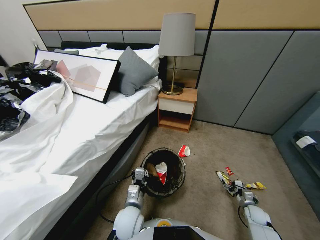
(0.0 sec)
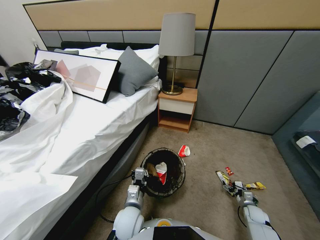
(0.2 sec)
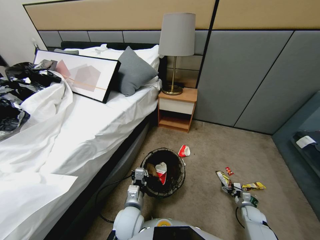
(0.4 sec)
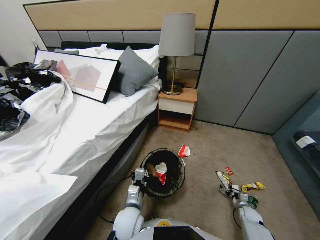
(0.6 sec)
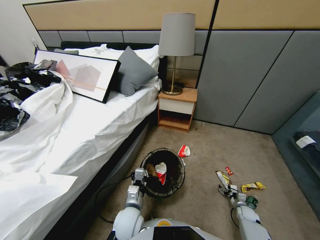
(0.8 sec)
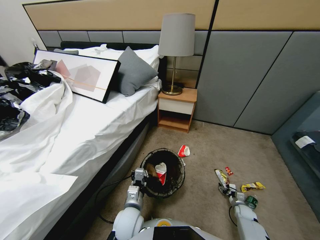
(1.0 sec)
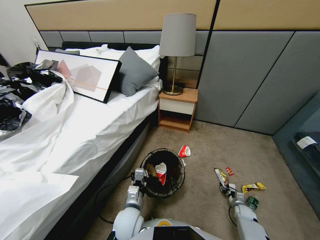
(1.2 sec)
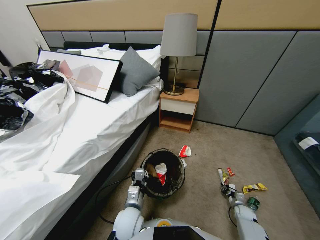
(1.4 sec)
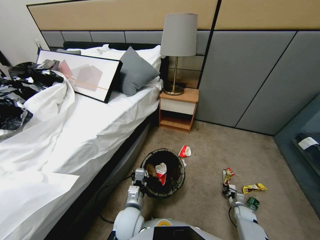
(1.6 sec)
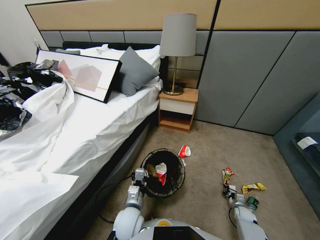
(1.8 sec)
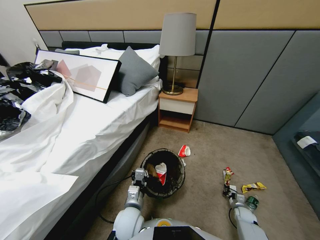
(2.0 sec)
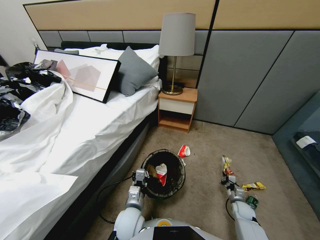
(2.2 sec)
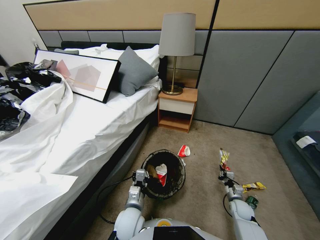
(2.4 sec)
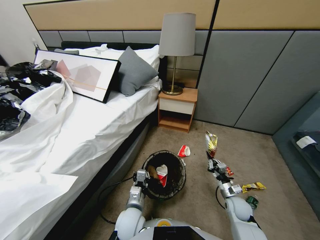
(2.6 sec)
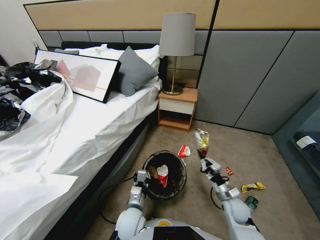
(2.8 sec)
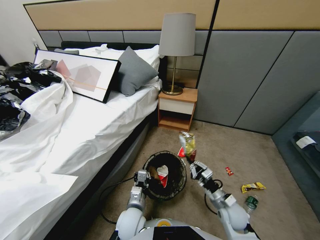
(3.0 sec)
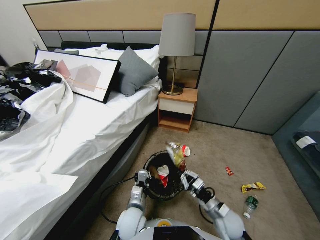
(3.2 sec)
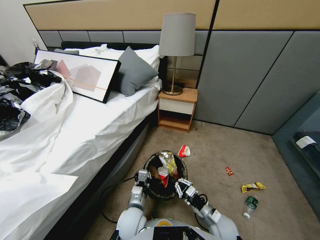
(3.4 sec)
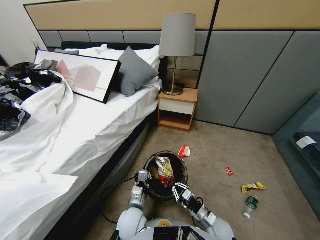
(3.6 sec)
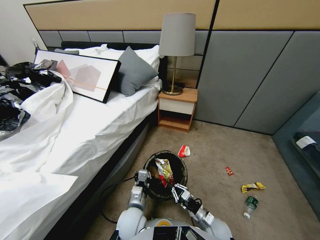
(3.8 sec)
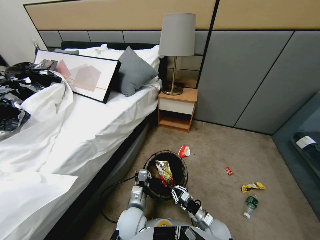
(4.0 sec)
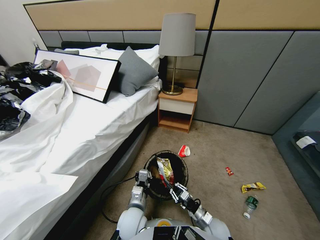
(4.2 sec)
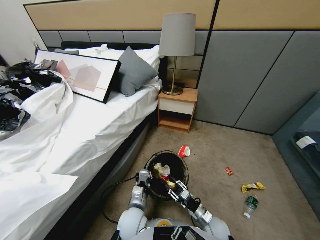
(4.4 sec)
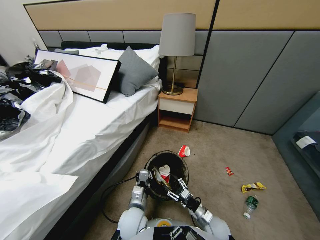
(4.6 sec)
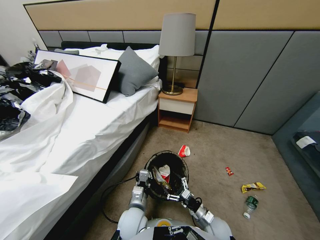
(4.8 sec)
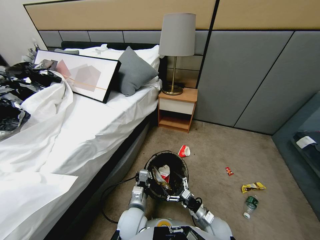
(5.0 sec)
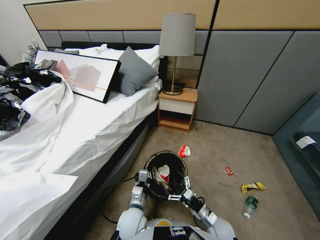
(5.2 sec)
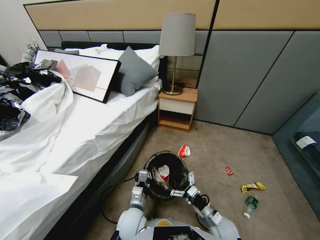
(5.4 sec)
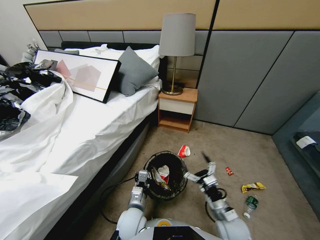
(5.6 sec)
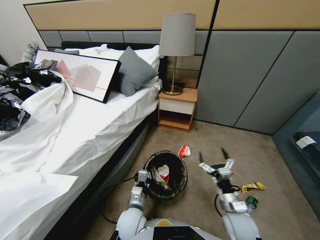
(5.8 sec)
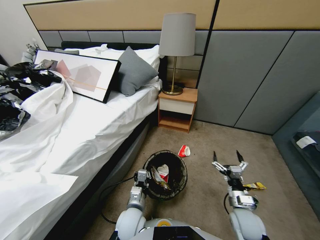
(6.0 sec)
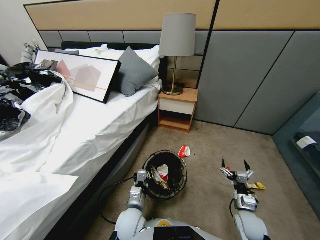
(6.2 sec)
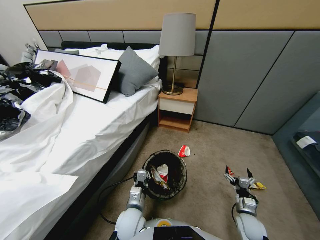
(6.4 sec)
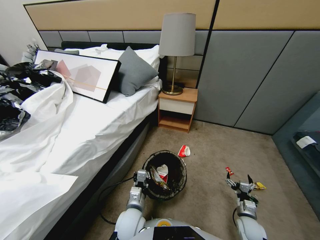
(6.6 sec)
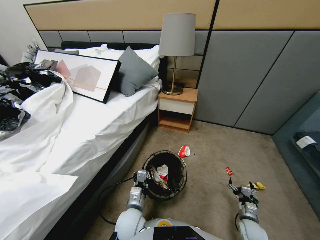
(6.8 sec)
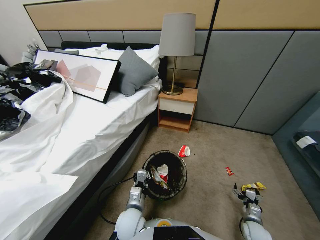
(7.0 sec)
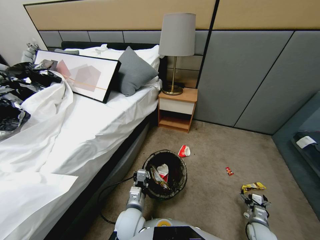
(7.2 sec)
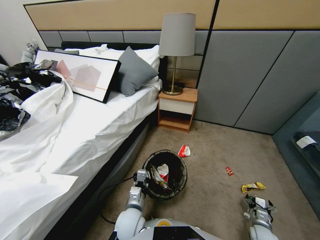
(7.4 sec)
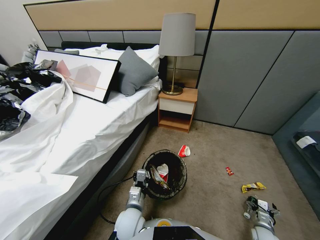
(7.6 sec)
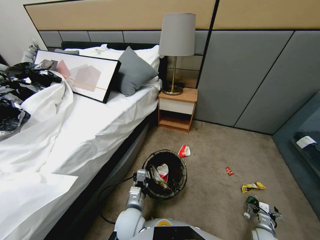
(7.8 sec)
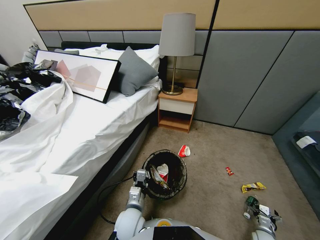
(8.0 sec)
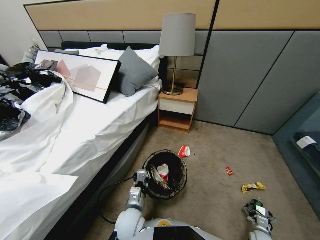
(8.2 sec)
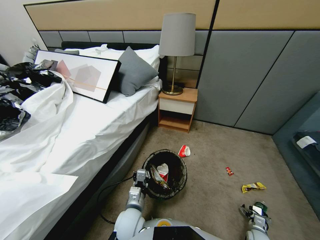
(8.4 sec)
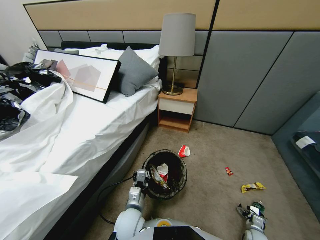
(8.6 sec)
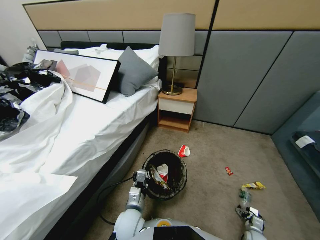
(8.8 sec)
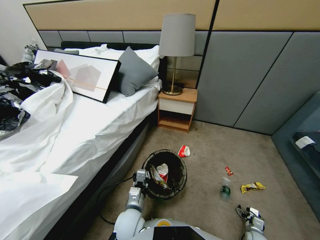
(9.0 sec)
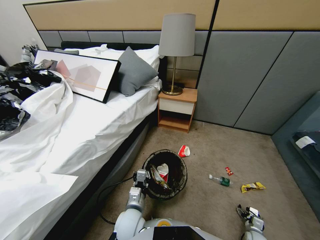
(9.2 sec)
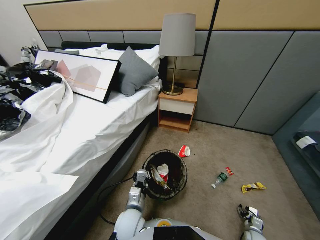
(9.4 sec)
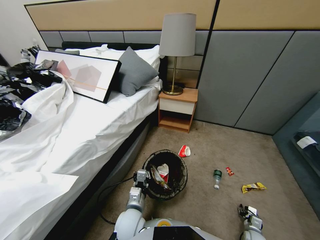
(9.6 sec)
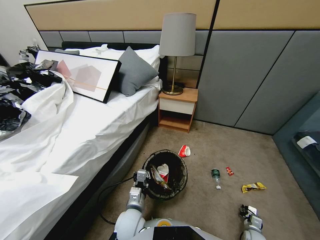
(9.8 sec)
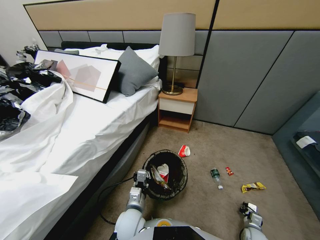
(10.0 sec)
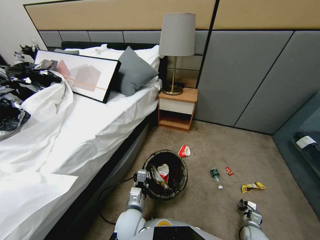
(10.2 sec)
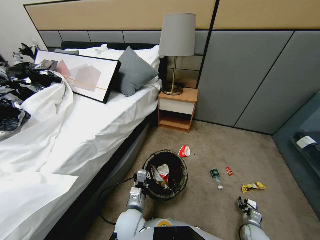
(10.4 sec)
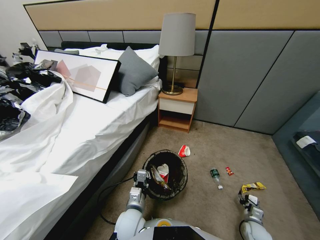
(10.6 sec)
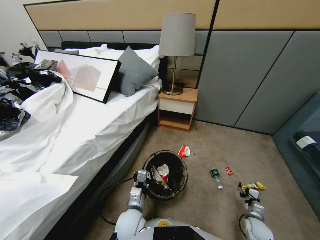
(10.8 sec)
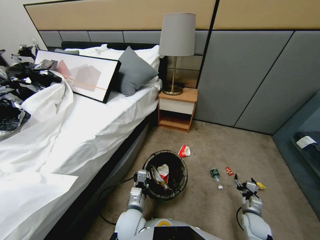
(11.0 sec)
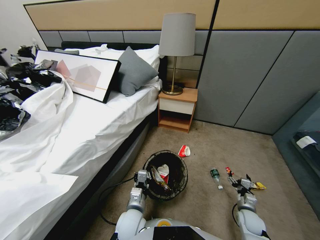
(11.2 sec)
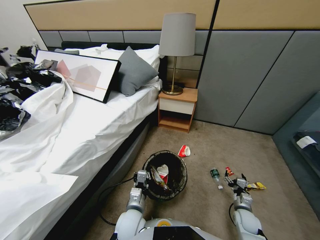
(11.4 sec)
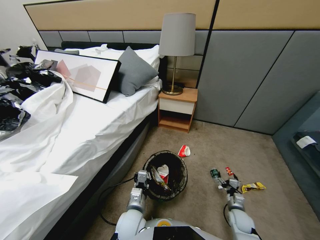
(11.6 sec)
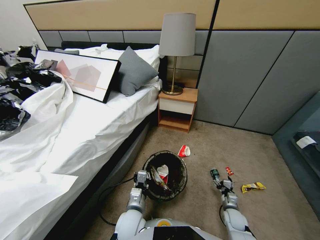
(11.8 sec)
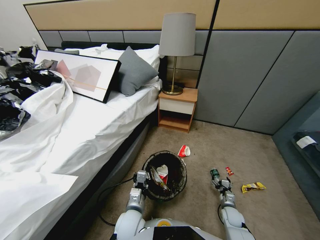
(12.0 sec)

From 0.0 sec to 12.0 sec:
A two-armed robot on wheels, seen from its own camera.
Task of the whole recording: Pick up the trash bin, then pick up the garbage from the floor and place it into the trash bin.
From 0.0 sec to 1.6 sec: The right gripper moves downward, roughly 5 cm, and closes up.
From 1.6 sec to 3.0 sec: The right gripper is displaced upward and to the left by some 30 cm.
From 3.0 sec to 4.4 sec: The right gripper travels downward by roughly 10 cm, and opens its fingers.
From 4.4 sec to 6.0 sec: The right gripper travels to the right and upward by roughly 15 cm, and opens up.
From 6.0 sec to 7.6 sec: The right gripper shifts roughly 20 cm downward and to the right.
From 7.6 sec to 9.0 sec: The right gripper moves downward, approximately 5 cm.
From 9.0 sec to 10.4 sec: The right gripper moves roughly 5 cm, and closes, then reopens.
From 10.4 sec to 12.0 sec: The right gripper is displaced to the left and forward by approximately 10 cm.

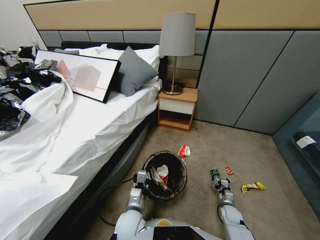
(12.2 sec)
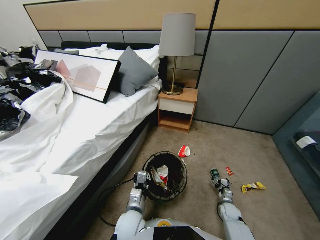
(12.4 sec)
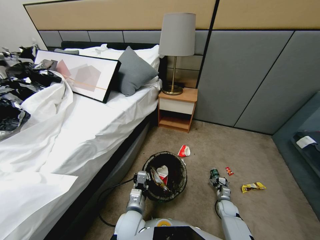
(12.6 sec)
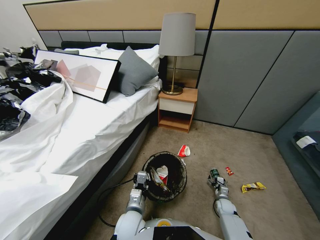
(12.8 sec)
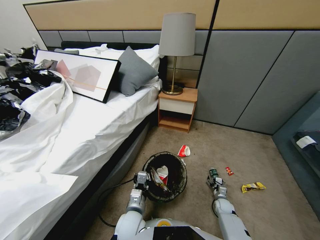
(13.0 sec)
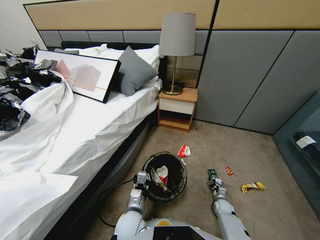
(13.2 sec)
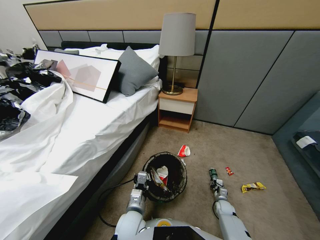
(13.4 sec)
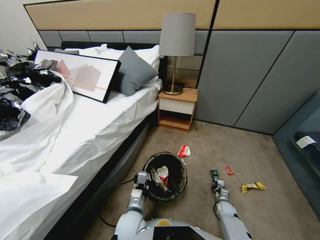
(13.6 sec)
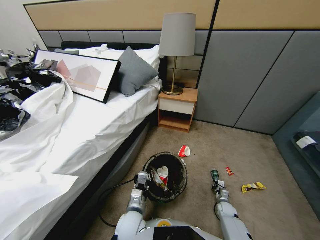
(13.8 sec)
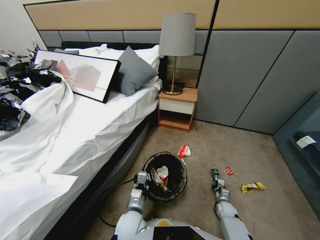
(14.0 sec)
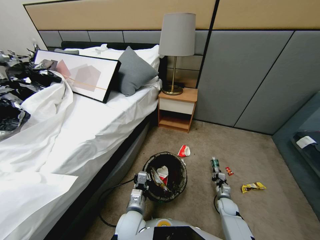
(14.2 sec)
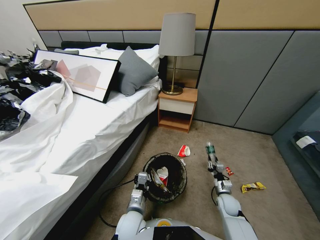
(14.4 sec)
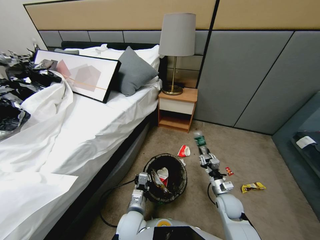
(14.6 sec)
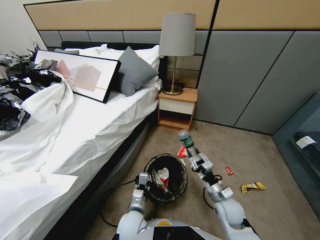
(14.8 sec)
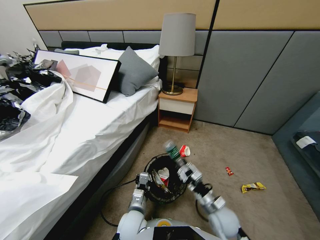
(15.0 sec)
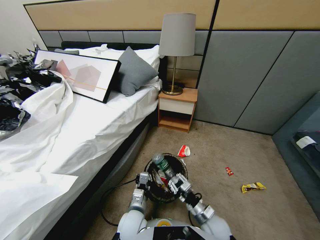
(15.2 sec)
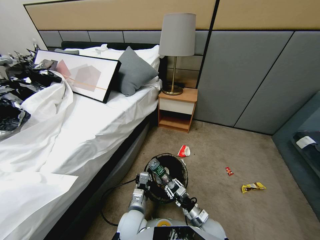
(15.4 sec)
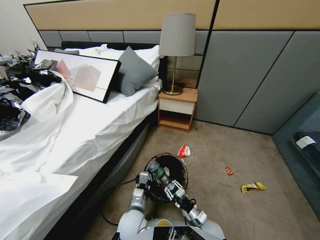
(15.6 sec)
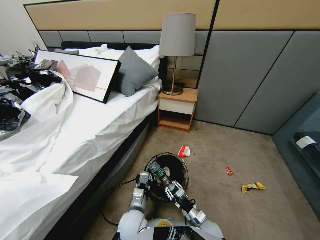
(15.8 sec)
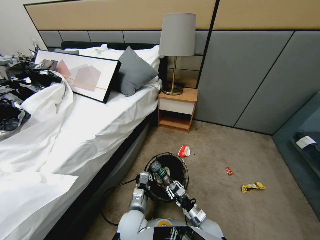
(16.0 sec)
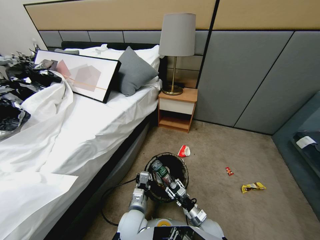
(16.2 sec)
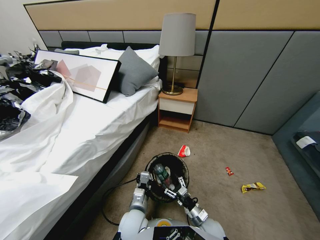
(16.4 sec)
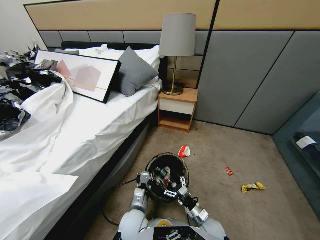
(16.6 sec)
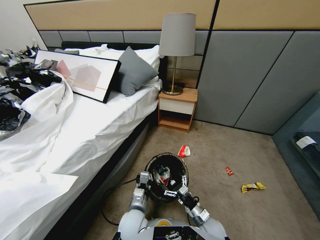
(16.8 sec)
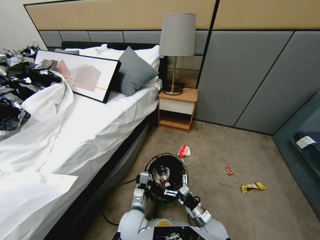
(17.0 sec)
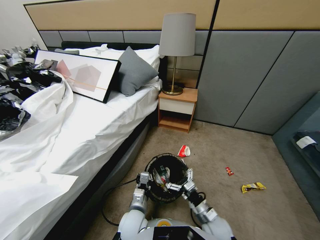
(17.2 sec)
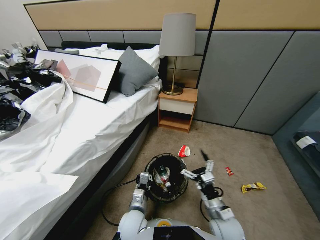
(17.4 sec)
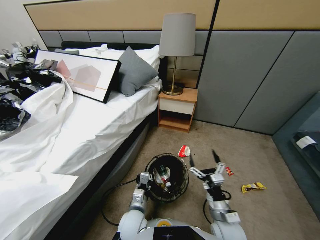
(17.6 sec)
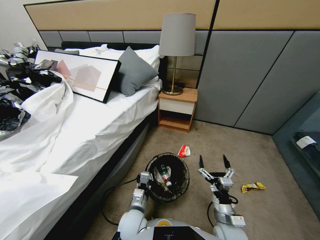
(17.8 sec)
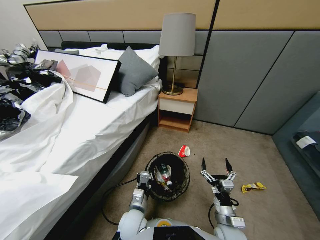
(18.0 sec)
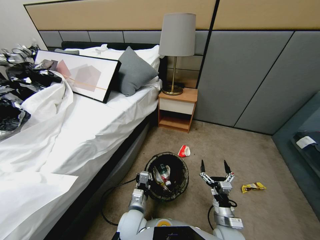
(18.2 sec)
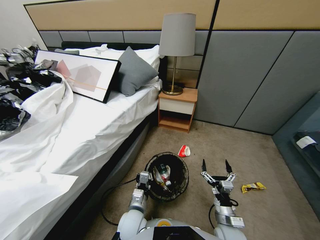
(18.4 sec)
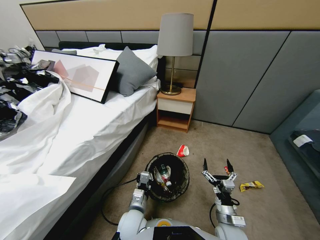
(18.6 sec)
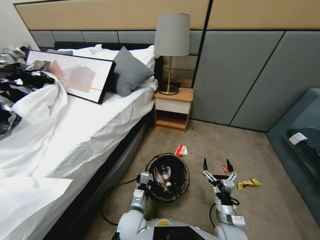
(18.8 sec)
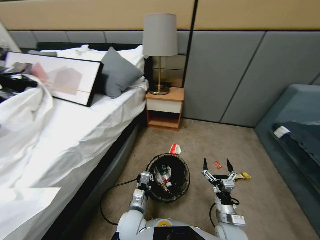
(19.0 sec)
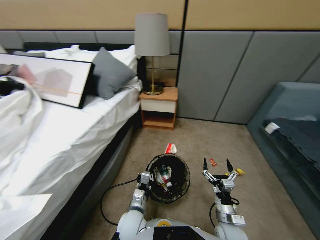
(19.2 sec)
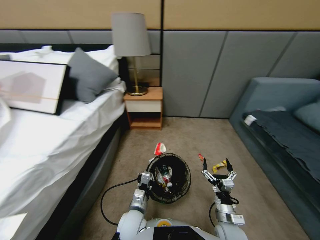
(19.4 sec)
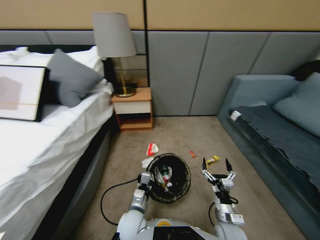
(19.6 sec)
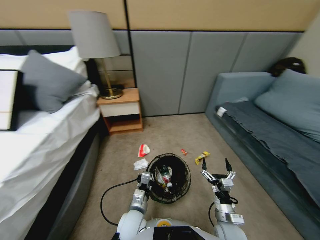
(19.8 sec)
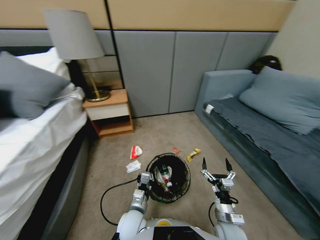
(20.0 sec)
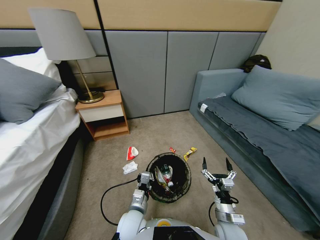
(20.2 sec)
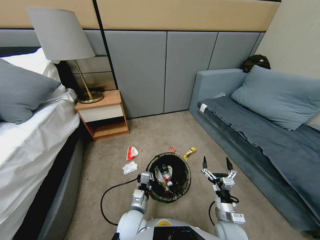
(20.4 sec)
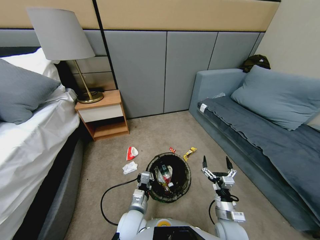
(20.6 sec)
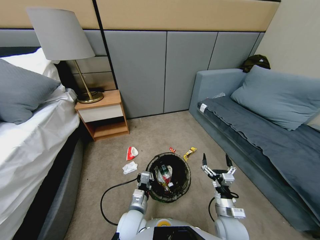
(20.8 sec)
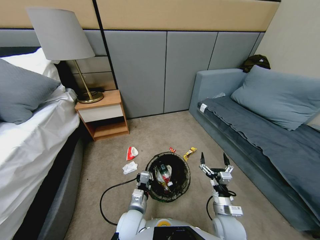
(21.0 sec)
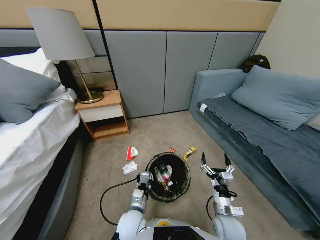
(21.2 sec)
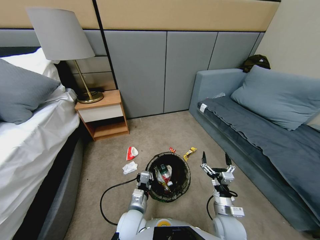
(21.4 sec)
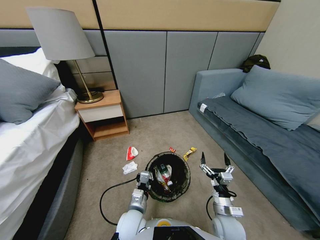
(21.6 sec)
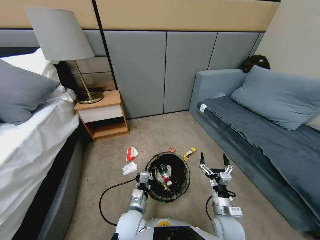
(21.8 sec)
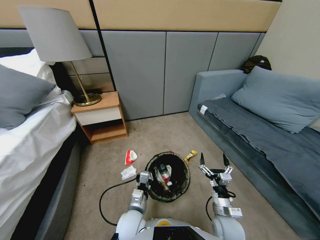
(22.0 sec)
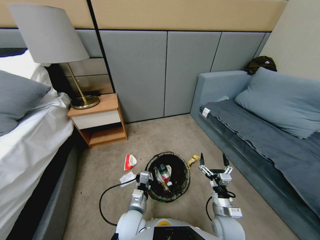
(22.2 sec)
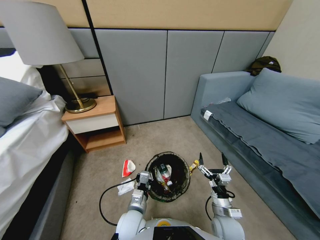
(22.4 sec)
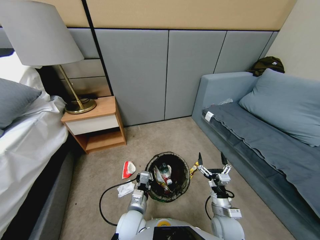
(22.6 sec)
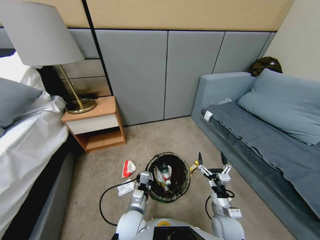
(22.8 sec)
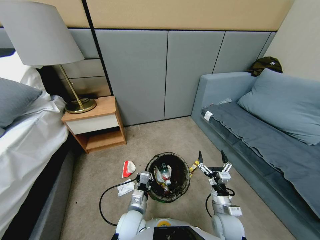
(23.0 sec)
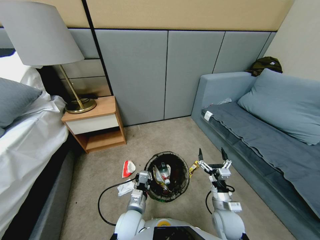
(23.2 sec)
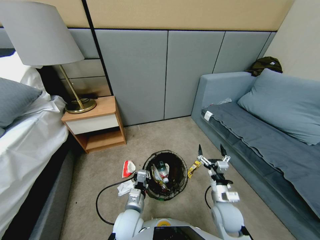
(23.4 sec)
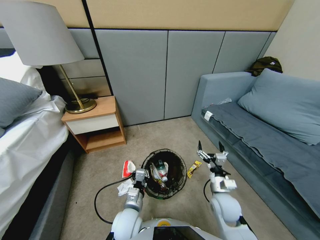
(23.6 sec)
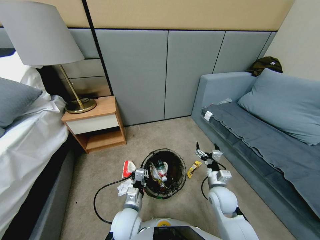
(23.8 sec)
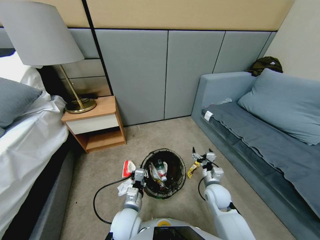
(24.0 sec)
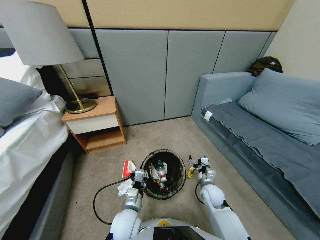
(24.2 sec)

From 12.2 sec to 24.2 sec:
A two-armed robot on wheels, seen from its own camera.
Task of the whole recording: Pick up the trash bin, then pick up the garbage from the floor and place it into the trash bin.
From 12.2 sec to 13.8 sec: The right gripper closes up.
From 13.8 sec to 15.2 sec: The right gripper heads to the left, upward and backward, covering some 30 cm.
From 15.2 sec to 16.6 sec: The right gripper opens its fingers.
From 16.6 sec to 18.2 sec: The right gripper heads upward, covering about 5 cm.
From 22.6 sec to 24.2 sec: The right gripper shifts about 15 cm forward and downward.
